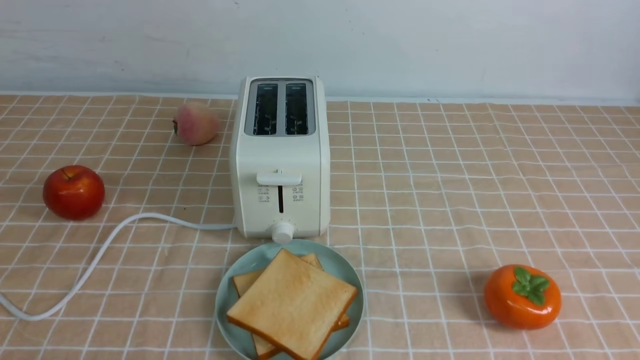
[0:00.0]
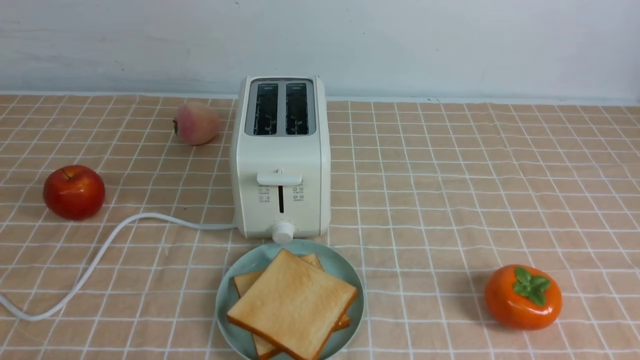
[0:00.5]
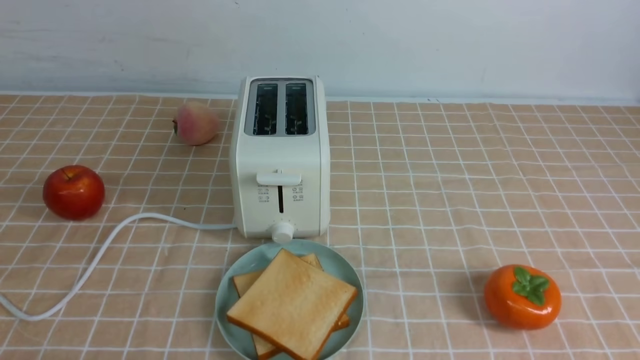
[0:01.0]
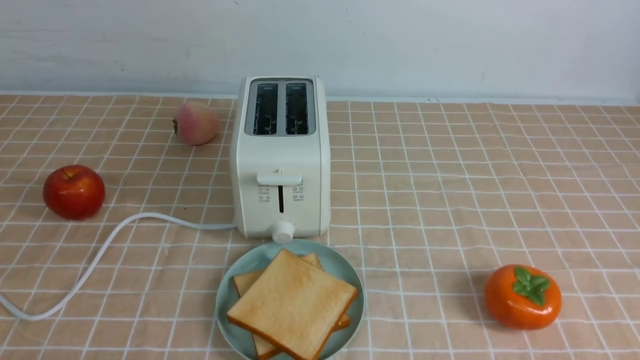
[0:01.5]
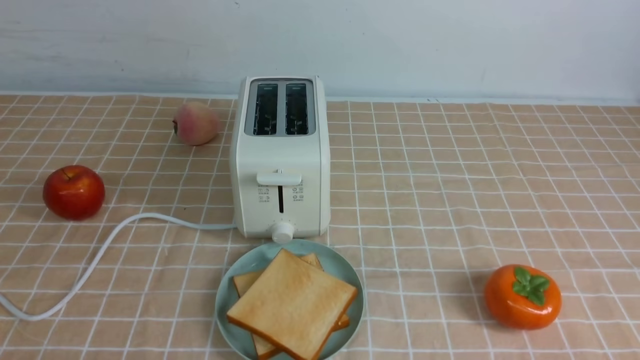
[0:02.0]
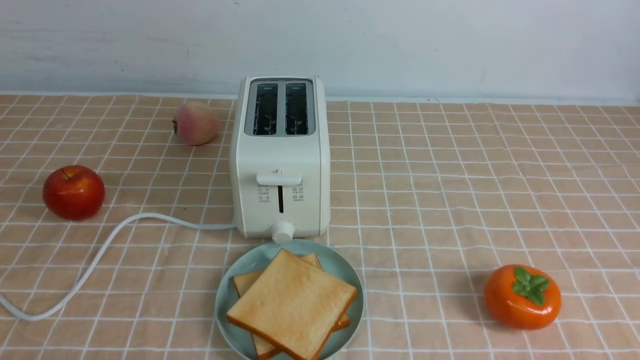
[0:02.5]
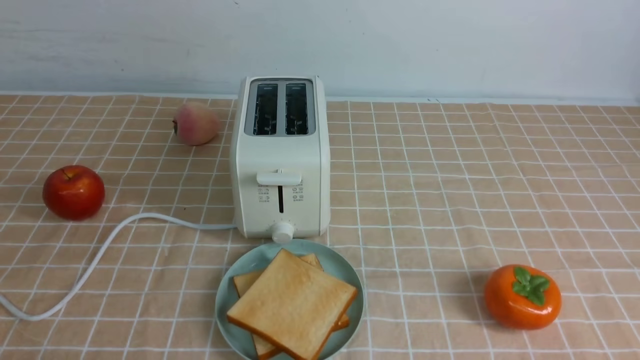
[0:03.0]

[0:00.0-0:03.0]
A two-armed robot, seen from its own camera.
Task of the whole recording: take toasted bread from bread machine on light coffee tablecloth place on plate.
0:01.5 to 0:03.0: Both grippers stay about where they are.
